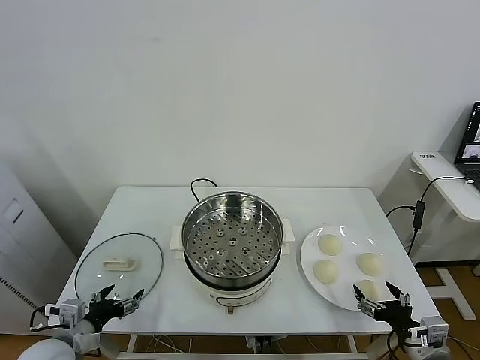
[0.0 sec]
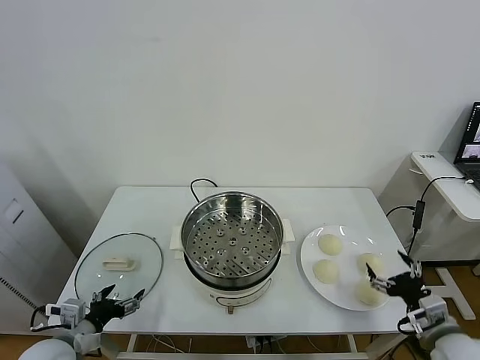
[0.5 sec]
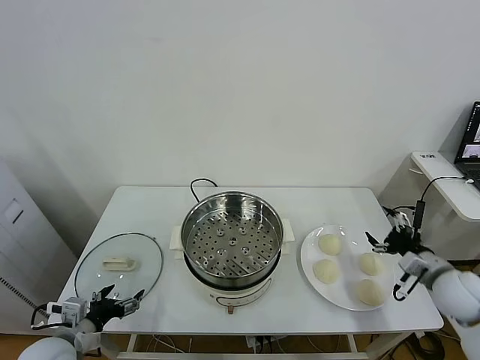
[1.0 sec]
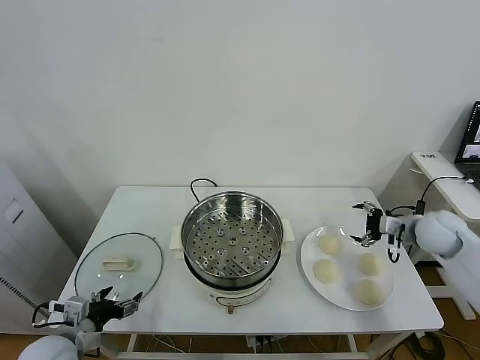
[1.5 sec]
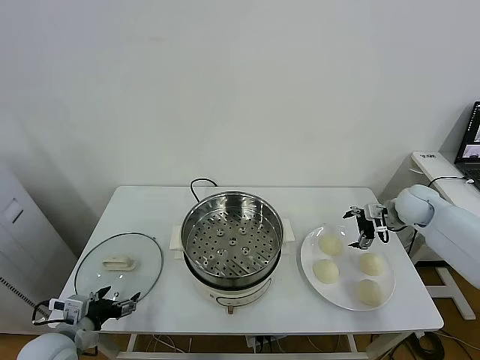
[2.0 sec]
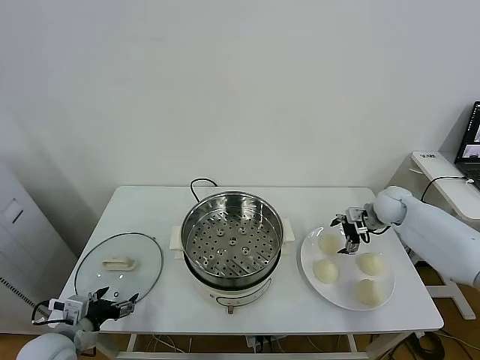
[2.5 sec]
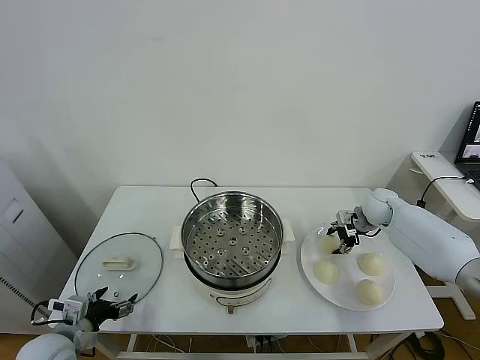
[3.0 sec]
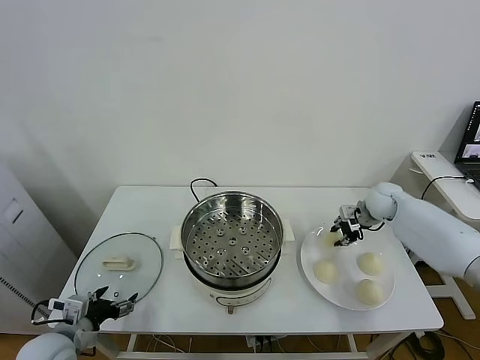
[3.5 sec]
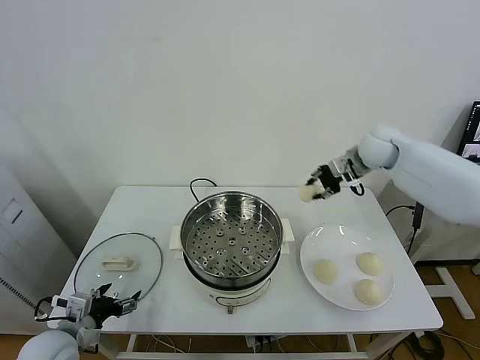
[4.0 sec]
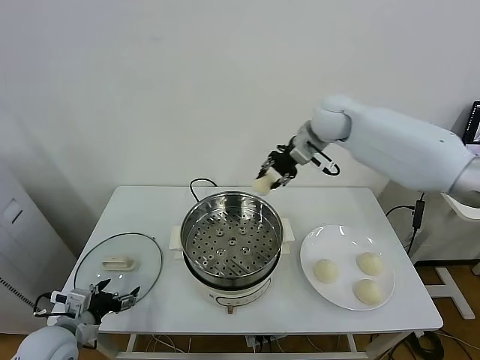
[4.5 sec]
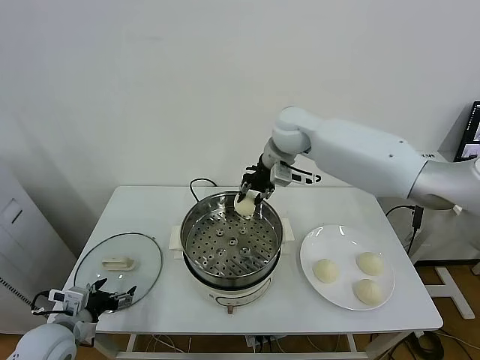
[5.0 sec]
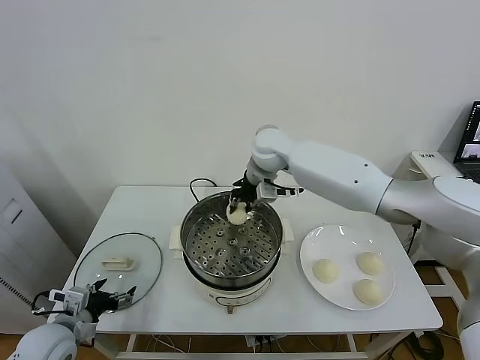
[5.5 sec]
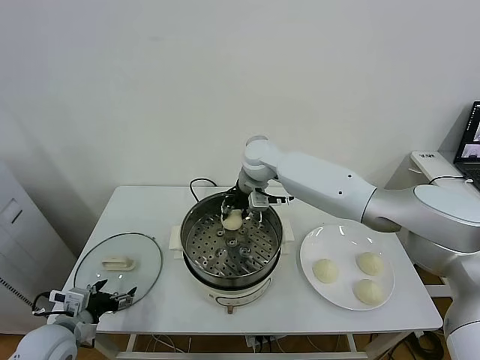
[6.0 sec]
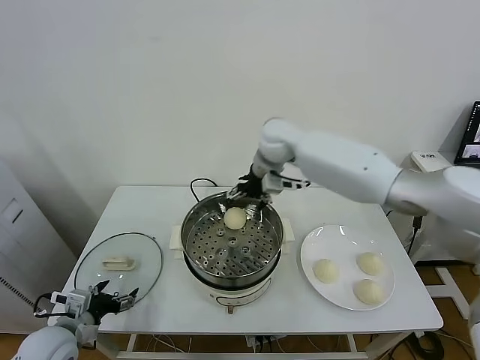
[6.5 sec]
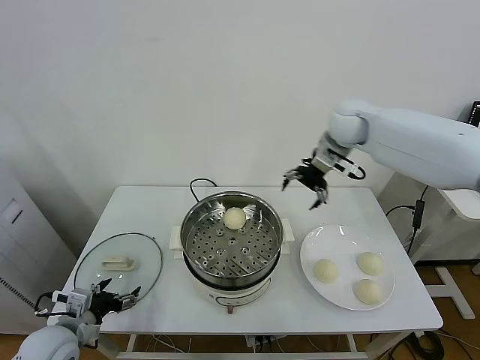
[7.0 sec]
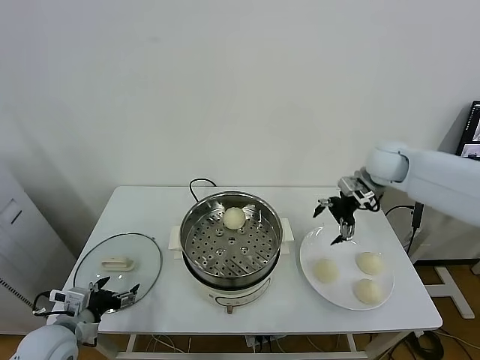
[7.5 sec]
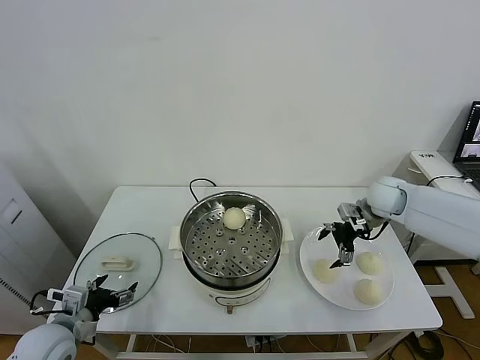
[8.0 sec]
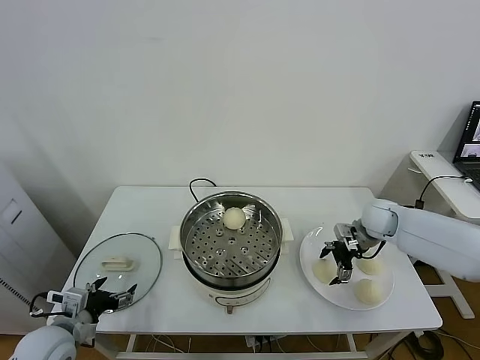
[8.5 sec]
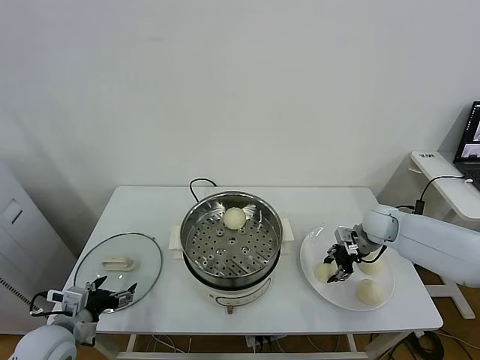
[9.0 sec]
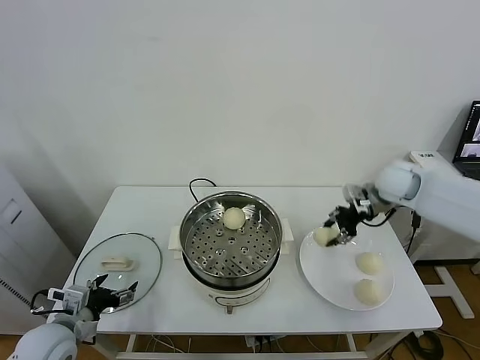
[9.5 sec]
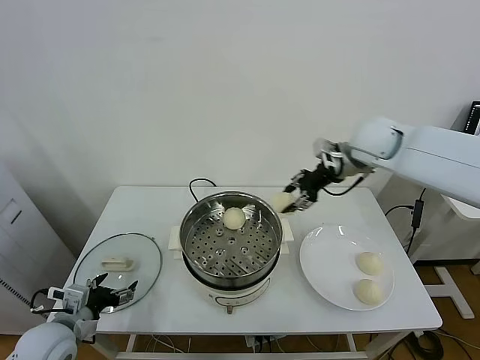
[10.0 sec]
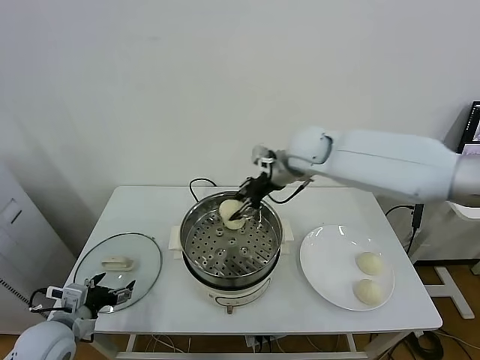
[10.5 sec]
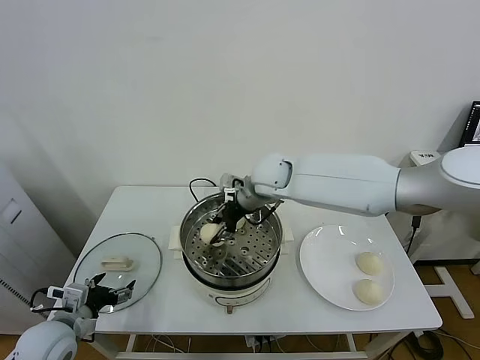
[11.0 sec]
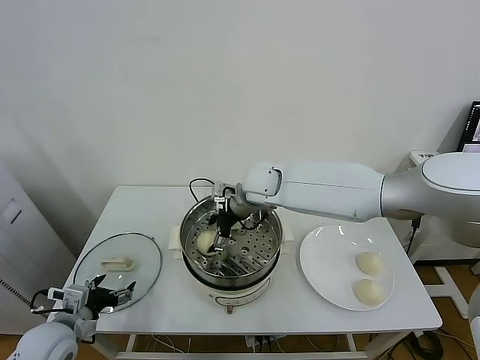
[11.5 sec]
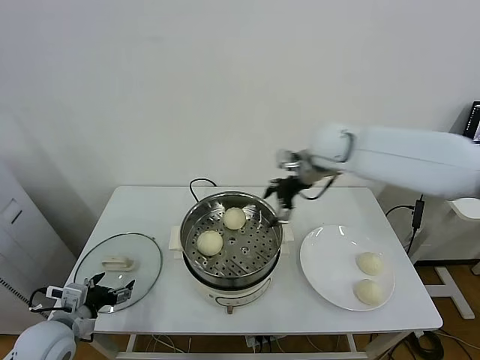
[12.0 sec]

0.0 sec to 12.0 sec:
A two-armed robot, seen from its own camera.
Task of the whole recording: take steamed baozi put them in steamer.
Step, 0.0 sec to 2.5 sec: Grasp the baozi in the plate with right gripper.
Step, 3.0 sec to 6.0 sec: Place the baozi on the steamer with right gripper.
Step, 6.5 sec to 8.5 sec: Grasp the baozi in the plate with right gripper.
Step, 9.0 sec to 11.5 sec: Place the baozi on the steamer with right gripper.
2.0 sec to 4.0 sec: The right gripper is displaced upward and to the left by some 20 cm, and closes.
4.0 sec to 6.0 sec: The right gripper heads to the left, covering about 25 cm, and opens up.
6.0 sec to 8.0 sec: The right gripper moves to the right, some 30 cm, and opens its fingers.
8.0 sec to 10.0 sec: The right gripper moves upward and to the left, some 20 cm, and closes.
10.0 sec to 12.0 sec: The right gripper moves about 20 cm to the left and comes back, and opens its fingers.

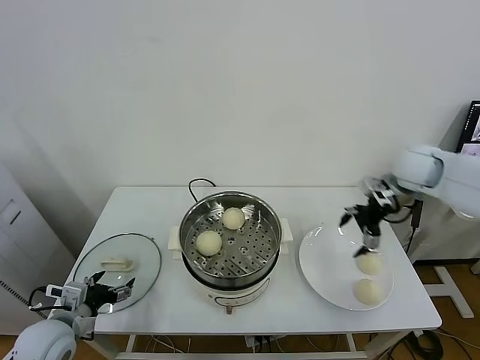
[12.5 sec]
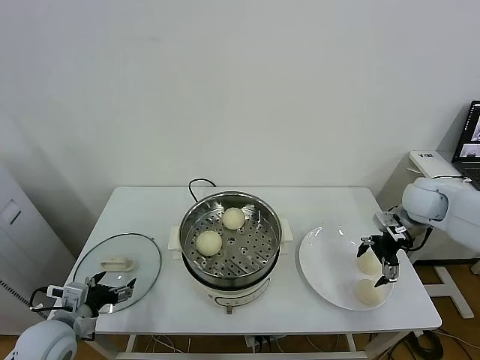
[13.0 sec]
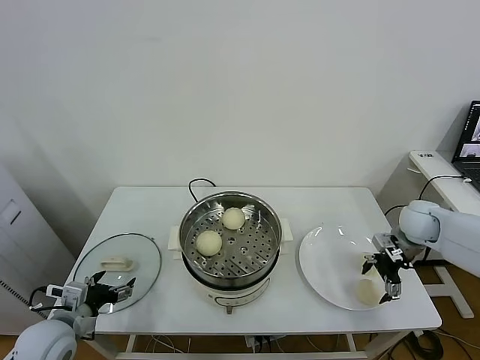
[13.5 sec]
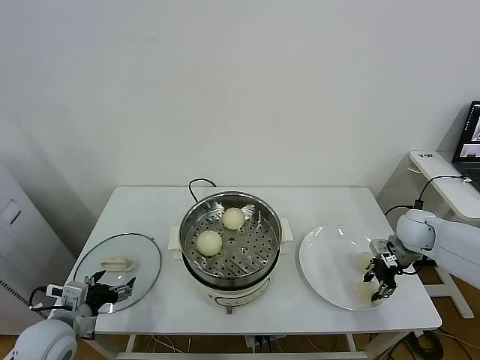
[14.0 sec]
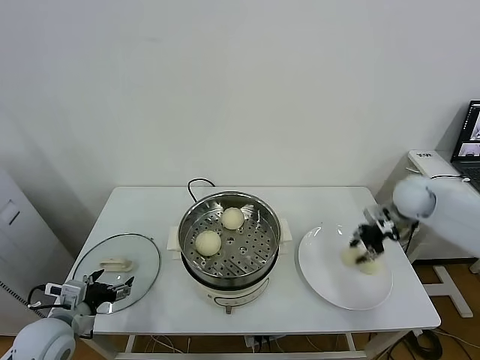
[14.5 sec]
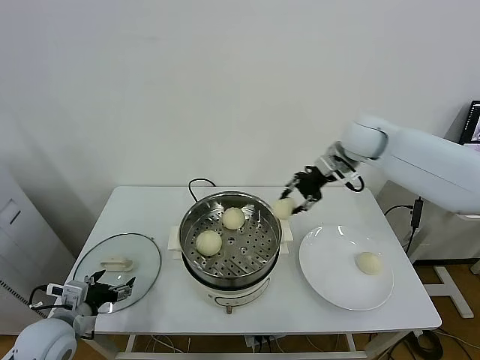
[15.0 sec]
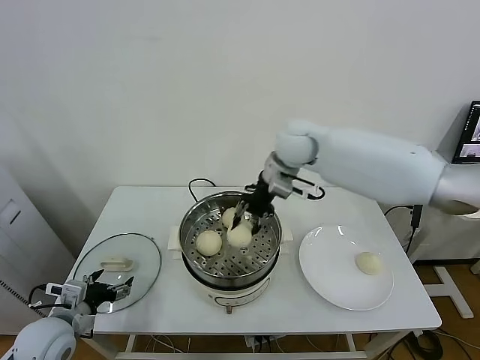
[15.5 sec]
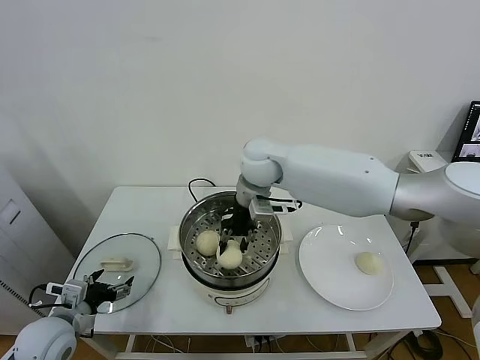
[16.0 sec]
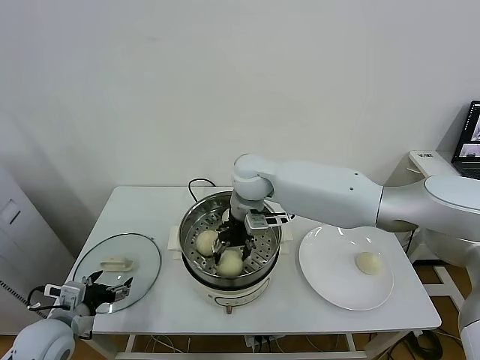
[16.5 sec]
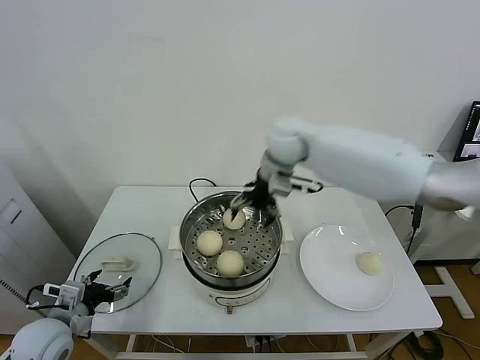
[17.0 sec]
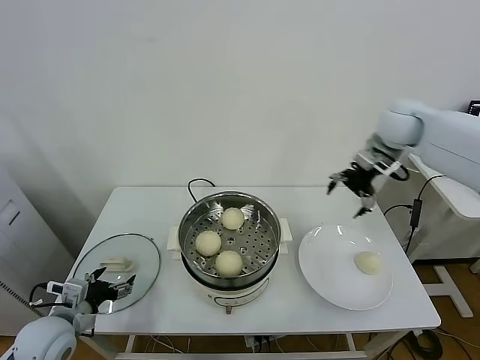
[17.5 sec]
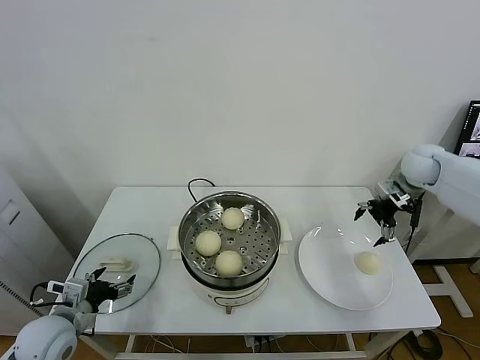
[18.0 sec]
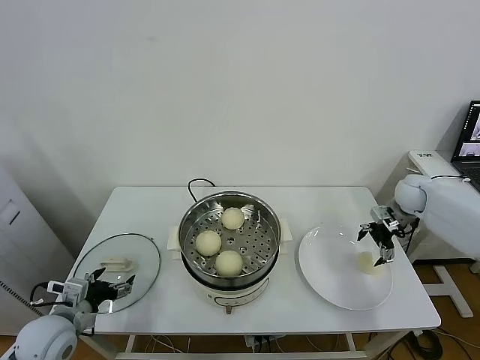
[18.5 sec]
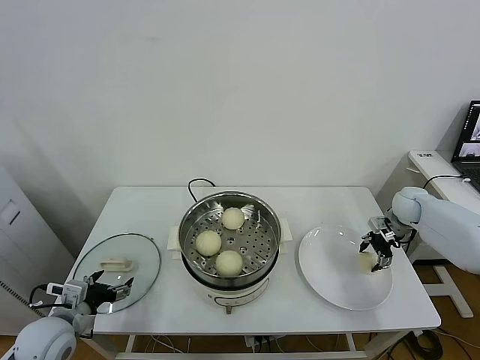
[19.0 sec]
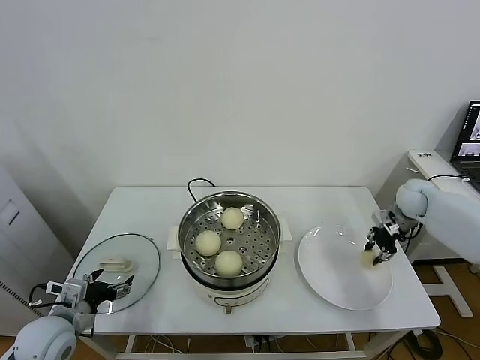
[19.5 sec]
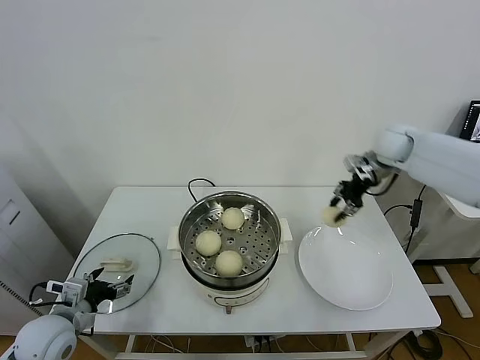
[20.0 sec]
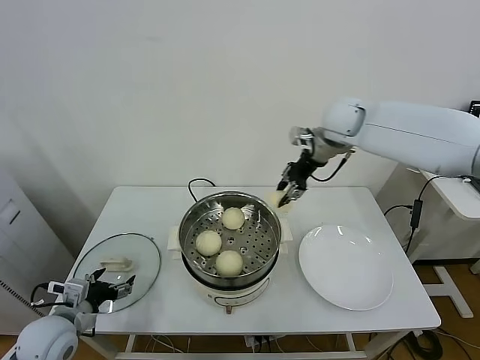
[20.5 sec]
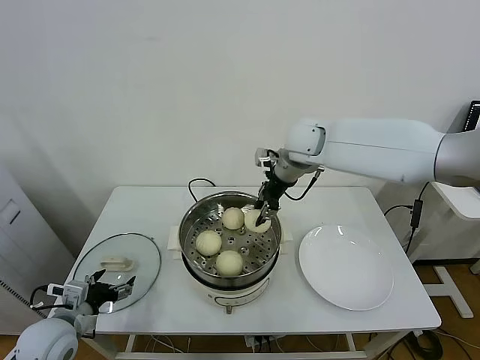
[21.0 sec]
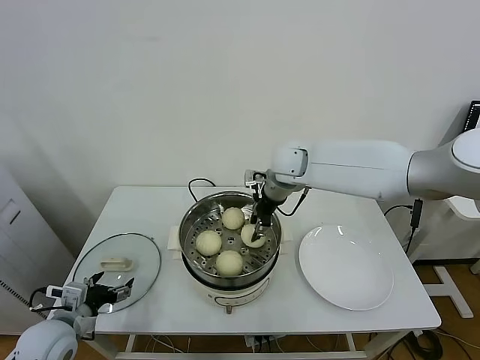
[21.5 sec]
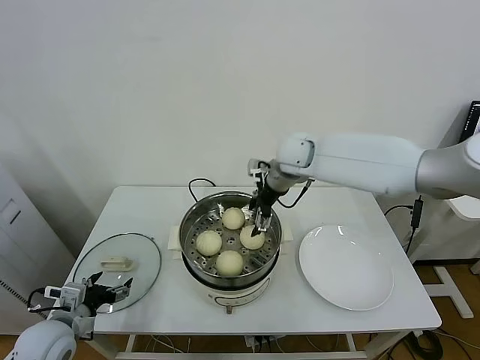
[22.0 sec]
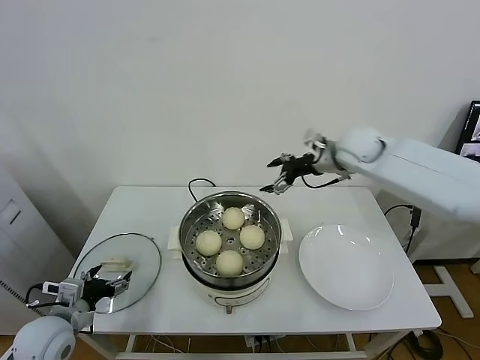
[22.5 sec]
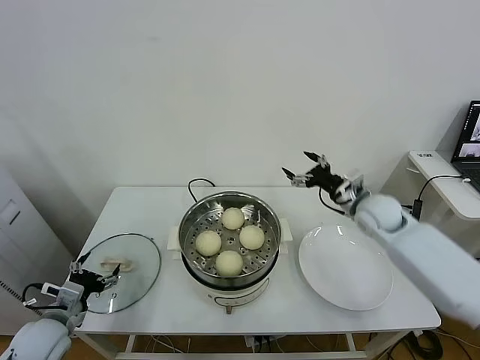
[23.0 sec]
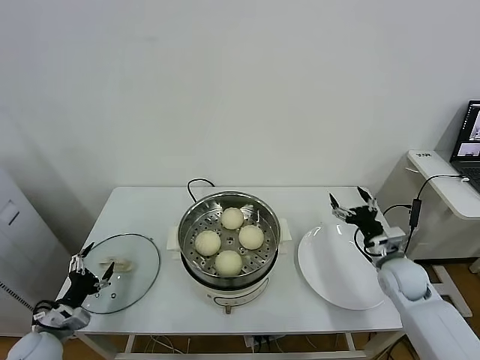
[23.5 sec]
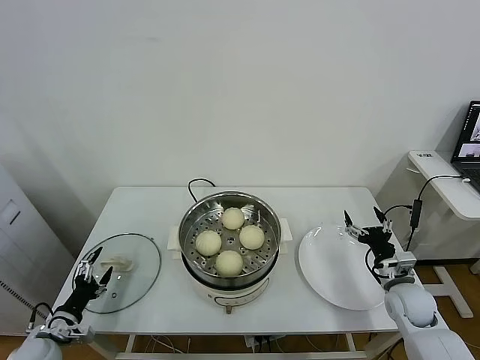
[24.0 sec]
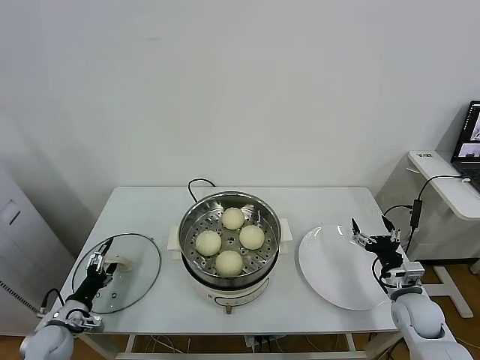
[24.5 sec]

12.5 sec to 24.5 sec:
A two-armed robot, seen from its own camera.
Task of the whole recording: take steamed baozi put them in steamer.
Step, 14.0 sec to 16.5 sec: Place the baozi on the steamer with right gripper.
Step, 17.0 sec to 19.0 sec: Grasp the baozi in the plate with right gripper.
Step, 19.5 sec to 21.5 sec: Place the baozi on the steamer with right gripper.
12.5 sec to 14.5 sec: The right gripper is displaced downward by approximately 5 cm, and closes up.
14.5 sec to 16.5 sec: The right gripper is displaced to the left by roughly 40 cm, and opens.
16.5 sec to 18.5 sec: The right gripper is displaced to the right by roughly 40 cm, and opens up.
18.5 sec to 20.5 sec: The right gripper goes approximately 30 cm to the left and upward, and closes.
20.5 sec to 22.5 sec: The right gripper moves downward, some 5 cm, moves approximately 10 cm to the left and comes back, and opens up.
22.5 sec to 24.5 sec: The left gripper goes roughly 15 cm downward and to the left. Meanwhile the right gripper is displaced downward, backward and to the right by some 40 cm.

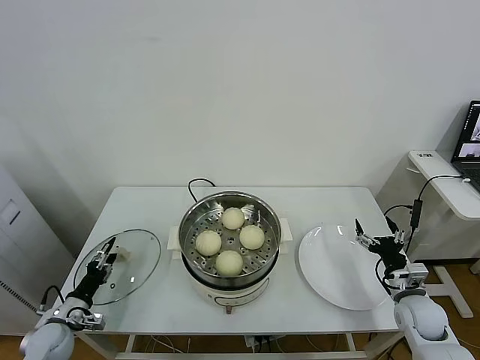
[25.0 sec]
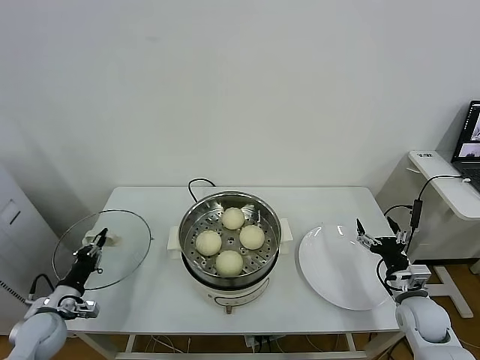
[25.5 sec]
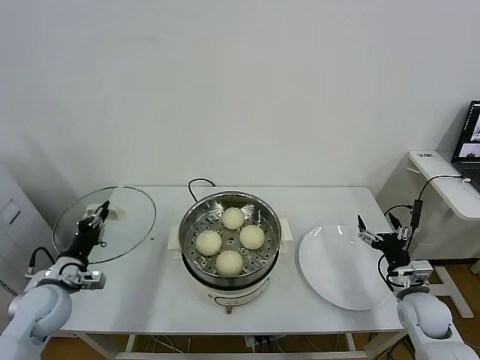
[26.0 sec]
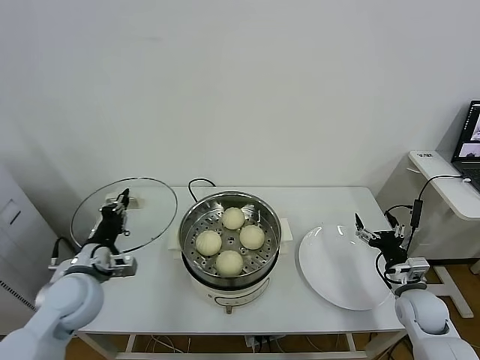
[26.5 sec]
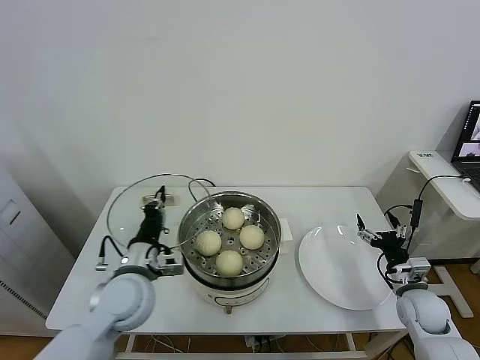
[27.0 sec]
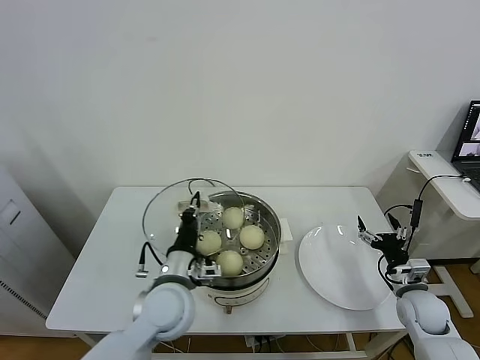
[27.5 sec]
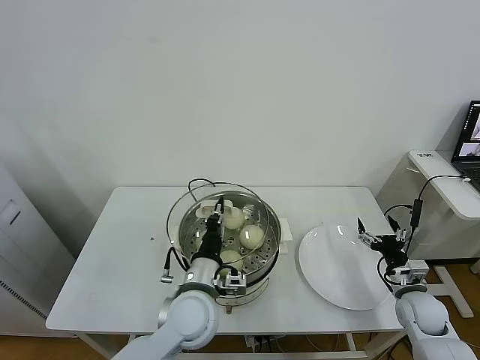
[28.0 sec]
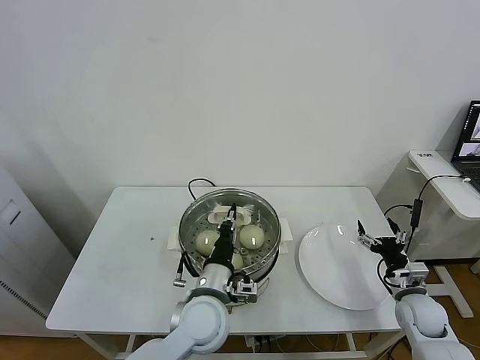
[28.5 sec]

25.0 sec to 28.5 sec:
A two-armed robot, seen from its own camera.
Task of the whole recording: take steamed baozi put them in steamer.
25.0 sec to 27.0 sec: The left gripper moves to the right and upward, roughly 30 cm, and closes its fingers.
27.0 sec to 28.5 sec: The left gripper goes approximately 15 cm to the right.
